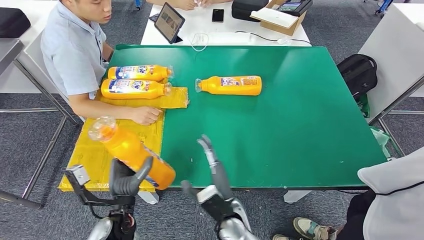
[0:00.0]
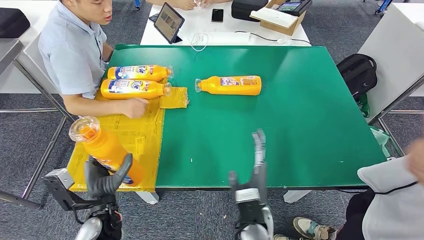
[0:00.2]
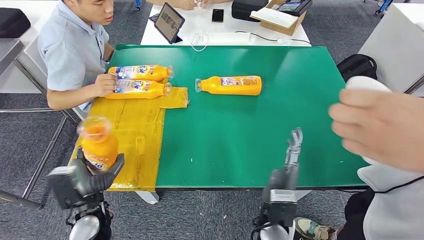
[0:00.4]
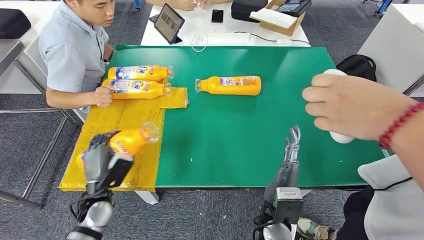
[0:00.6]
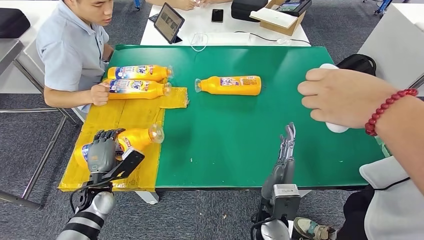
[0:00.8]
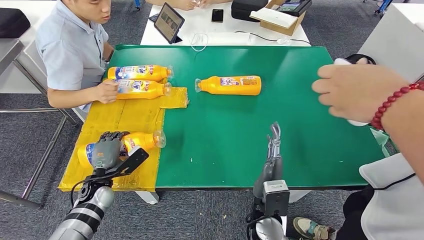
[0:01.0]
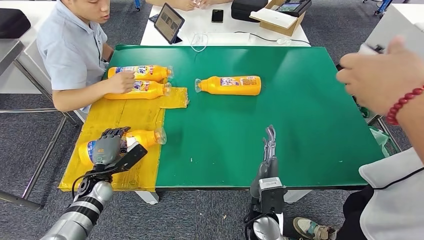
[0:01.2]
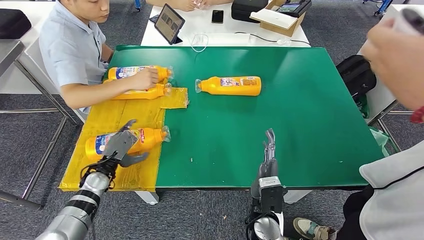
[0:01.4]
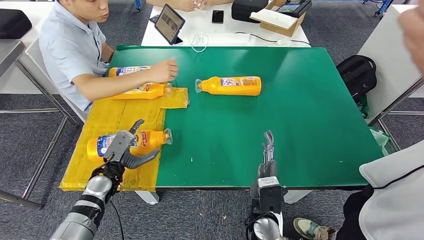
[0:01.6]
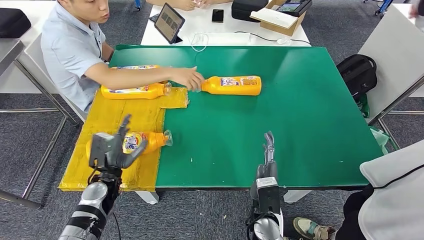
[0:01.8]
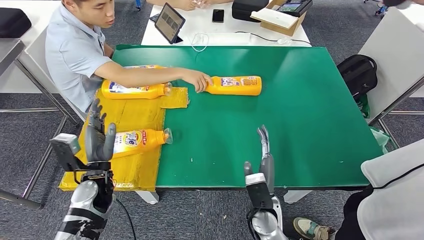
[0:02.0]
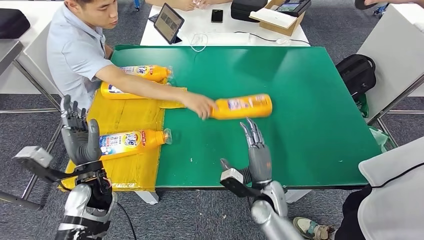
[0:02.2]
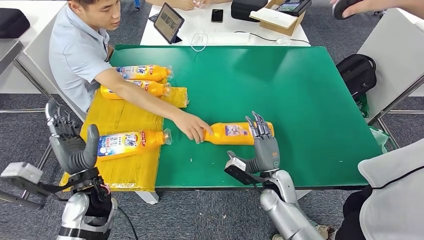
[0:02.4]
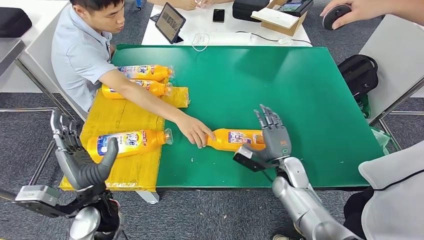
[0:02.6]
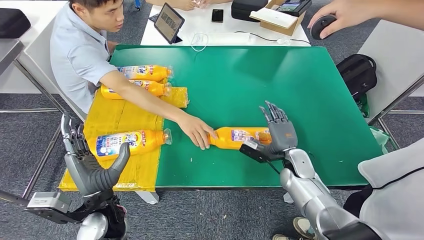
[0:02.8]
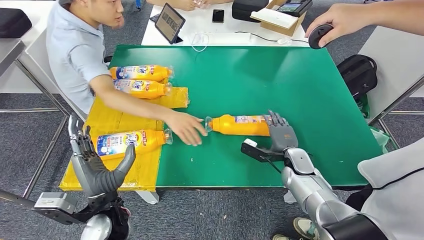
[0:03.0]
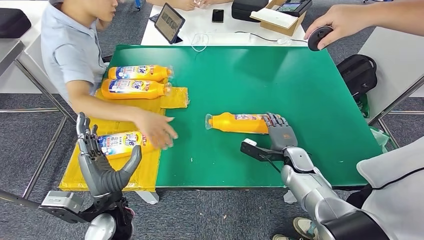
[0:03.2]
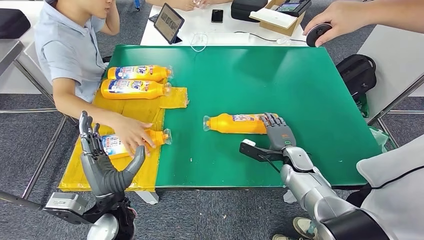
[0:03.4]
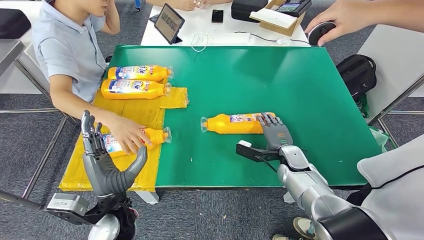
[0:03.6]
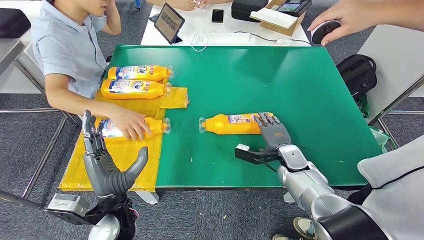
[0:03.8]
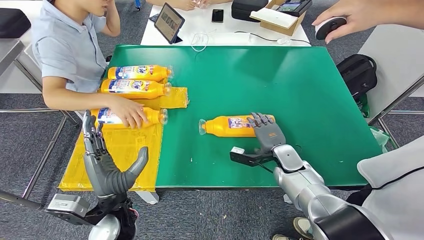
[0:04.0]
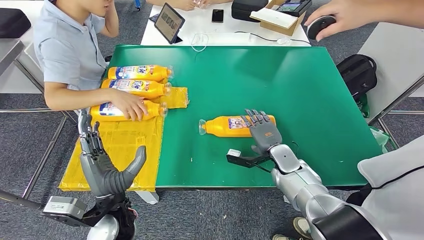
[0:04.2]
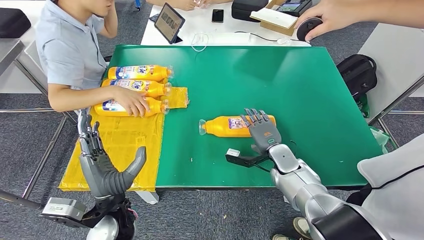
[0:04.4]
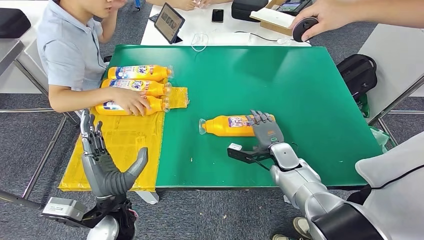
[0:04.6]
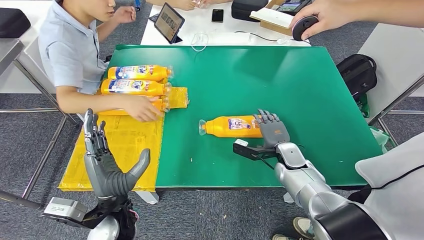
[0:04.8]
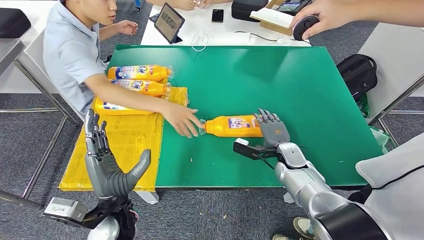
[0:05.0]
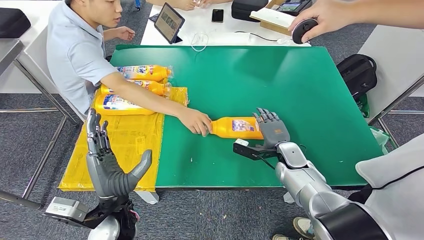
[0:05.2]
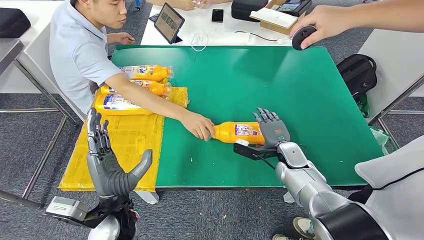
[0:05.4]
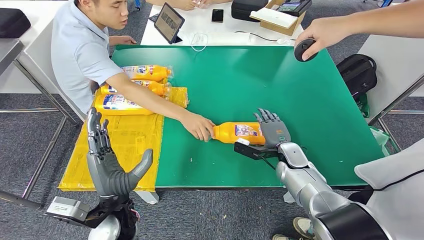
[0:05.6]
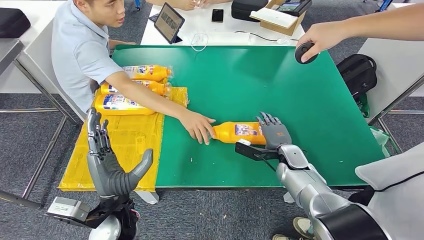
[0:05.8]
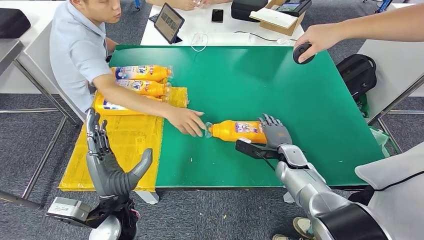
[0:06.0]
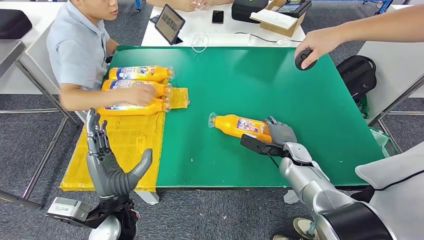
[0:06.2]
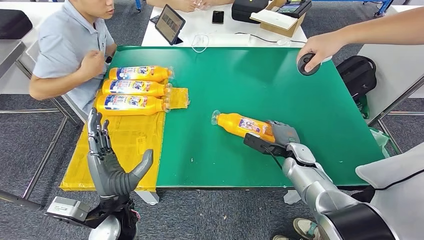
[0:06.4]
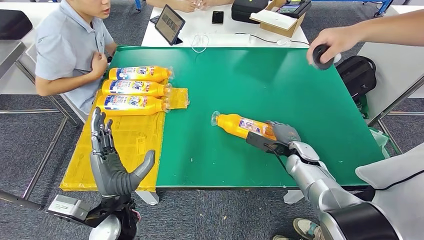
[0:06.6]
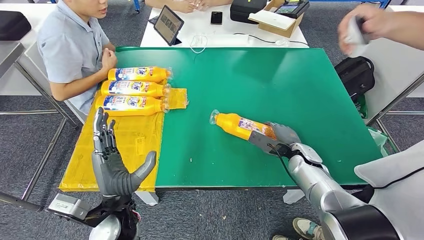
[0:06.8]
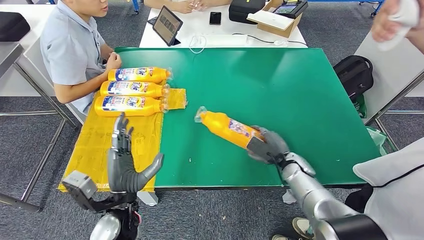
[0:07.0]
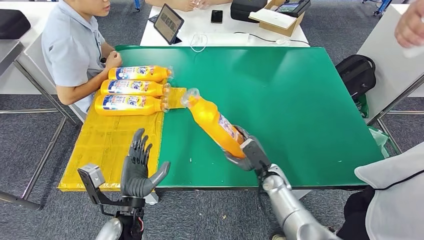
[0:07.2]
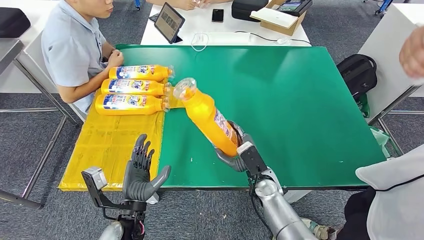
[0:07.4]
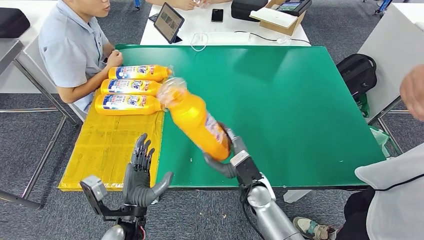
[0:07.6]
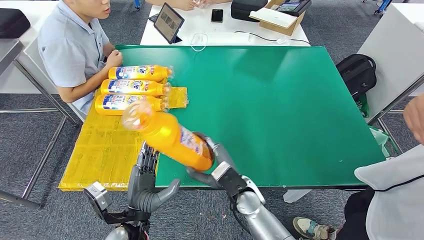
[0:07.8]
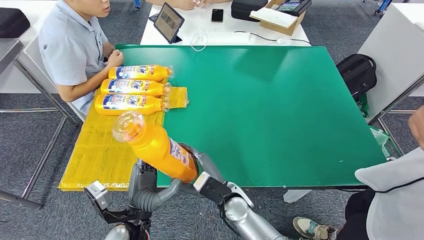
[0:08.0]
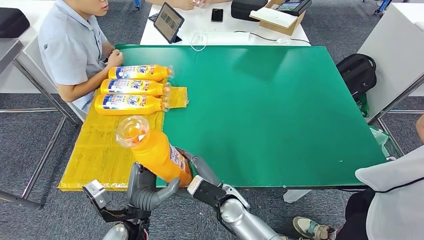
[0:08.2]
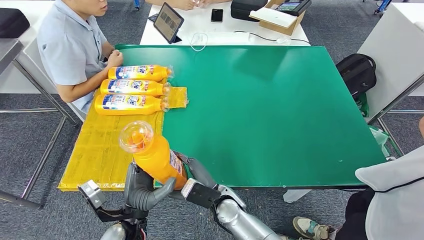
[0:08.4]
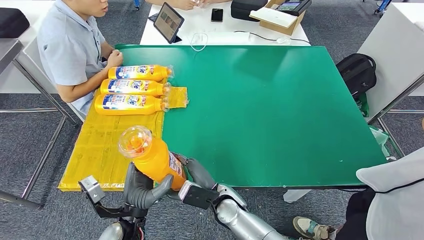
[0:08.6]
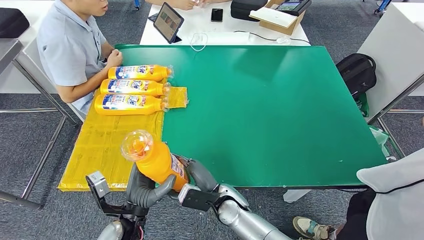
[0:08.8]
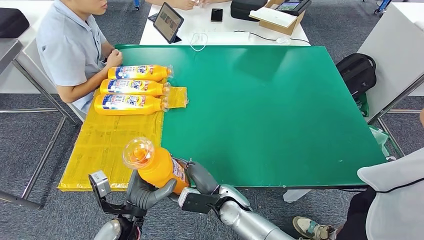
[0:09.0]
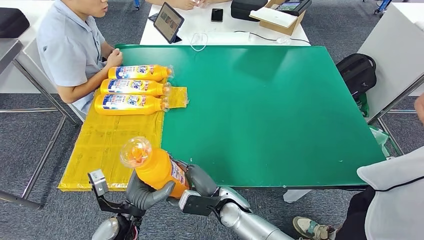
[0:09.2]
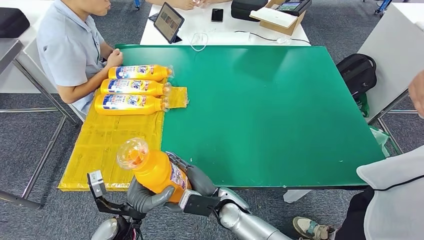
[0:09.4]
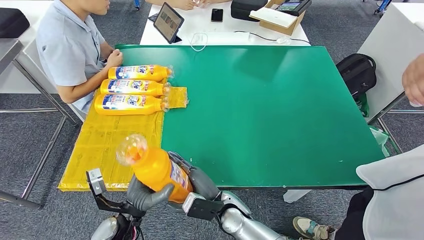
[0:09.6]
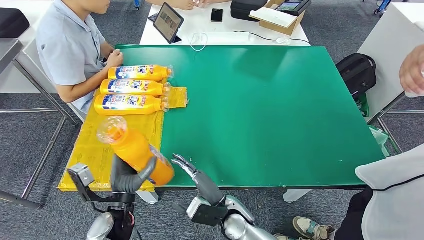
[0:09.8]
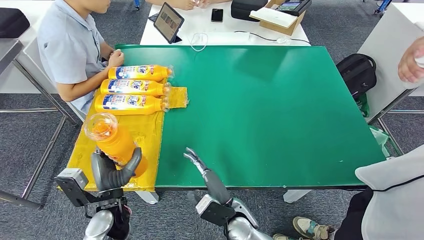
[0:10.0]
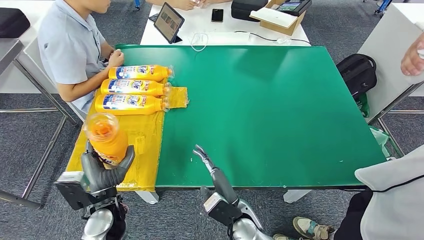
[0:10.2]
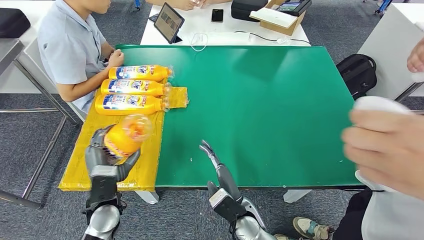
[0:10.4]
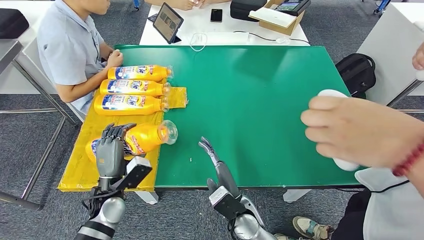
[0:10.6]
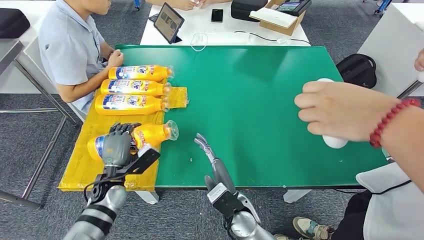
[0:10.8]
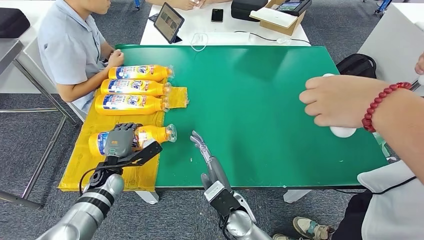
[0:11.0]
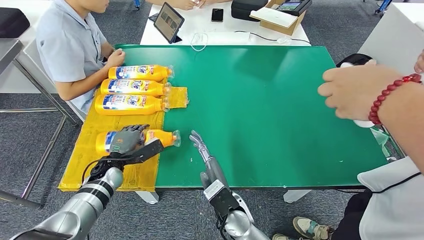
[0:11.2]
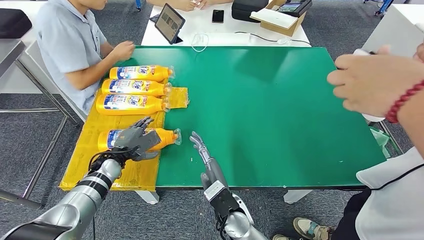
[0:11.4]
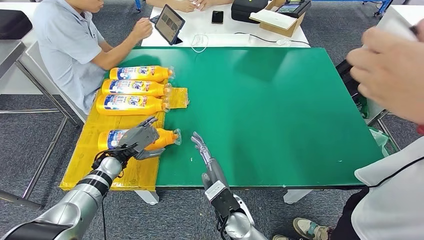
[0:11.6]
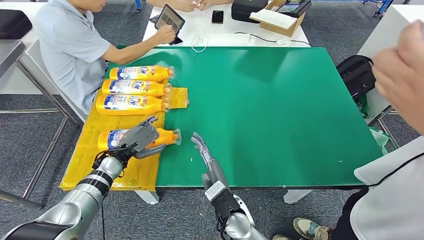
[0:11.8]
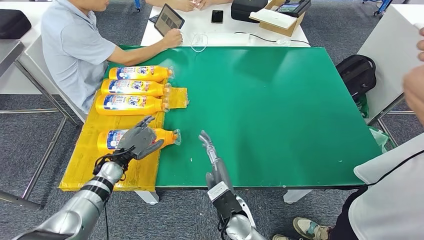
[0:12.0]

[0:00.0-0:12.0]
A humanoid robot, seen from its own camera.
Step, 0:00.0 to 0:01.6: Flip the bottle to face forward.
Step, 0:04.0 to 0:07.4: Pick up the bottle from the table.
0:07.6 to 0:09.0: The right hand heads to the left, covering roughly 10 cm.
0:09.0 to 0:10.4: The left hand moves to the left, approximately 5 cm. The right hand moves to the right, roughly 5 cm.

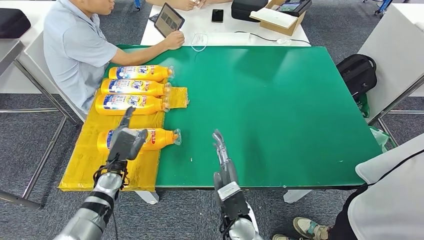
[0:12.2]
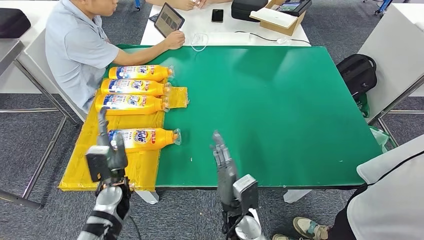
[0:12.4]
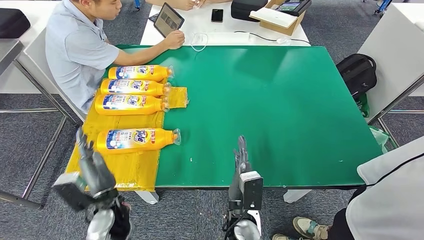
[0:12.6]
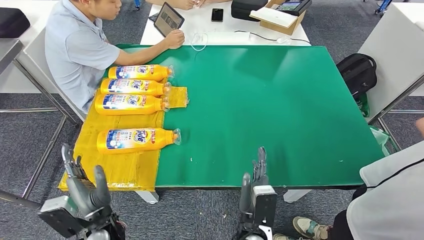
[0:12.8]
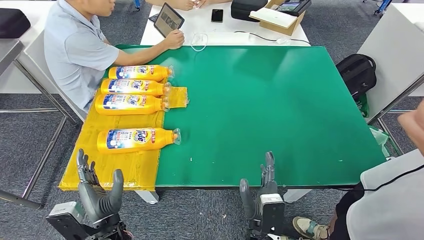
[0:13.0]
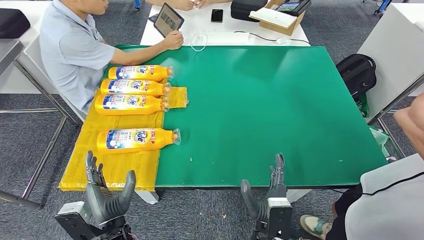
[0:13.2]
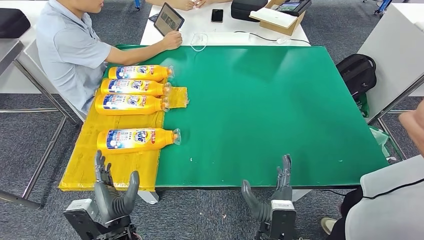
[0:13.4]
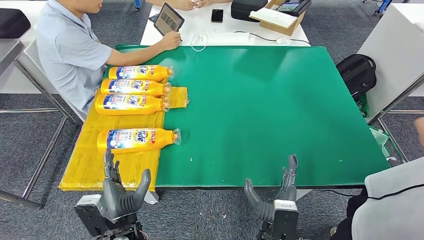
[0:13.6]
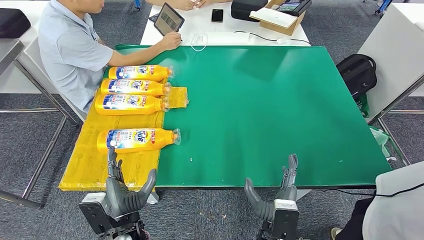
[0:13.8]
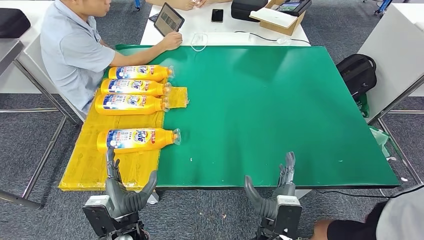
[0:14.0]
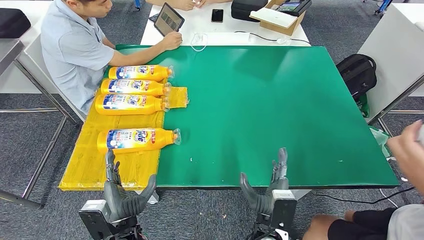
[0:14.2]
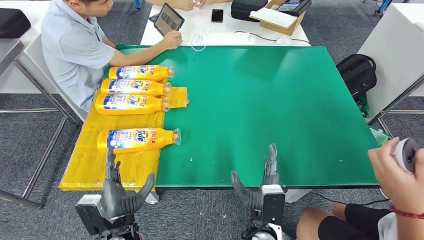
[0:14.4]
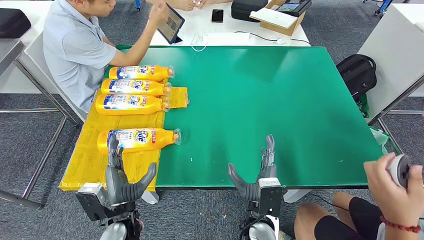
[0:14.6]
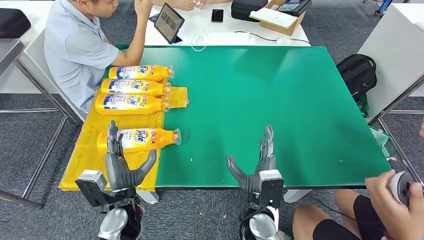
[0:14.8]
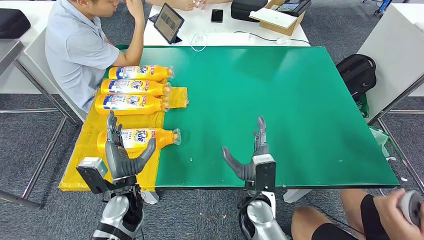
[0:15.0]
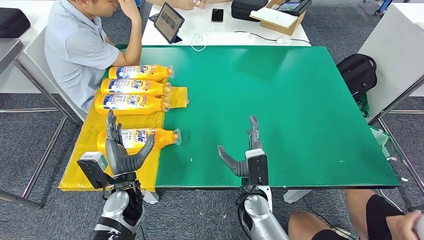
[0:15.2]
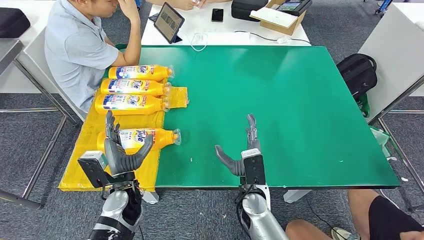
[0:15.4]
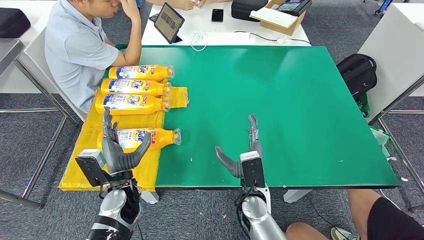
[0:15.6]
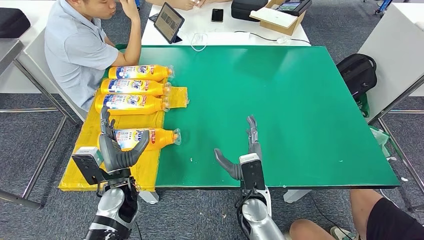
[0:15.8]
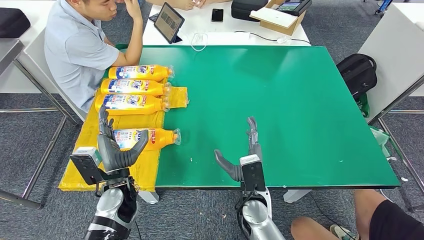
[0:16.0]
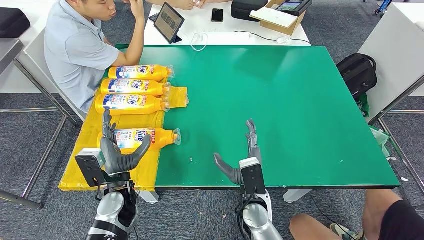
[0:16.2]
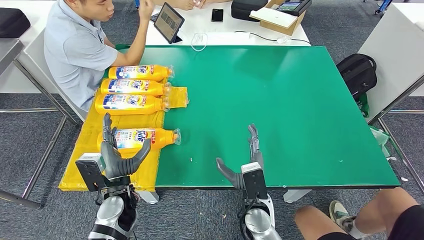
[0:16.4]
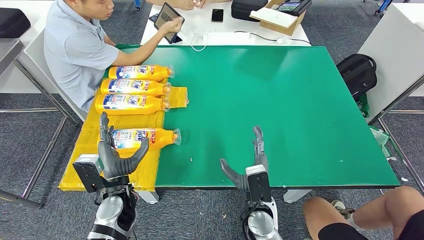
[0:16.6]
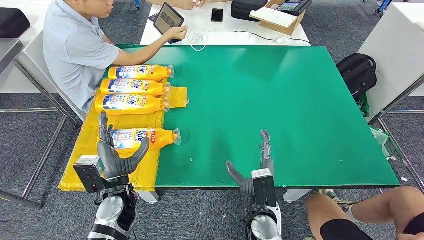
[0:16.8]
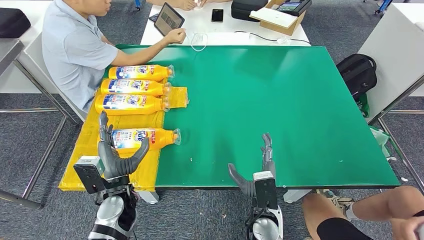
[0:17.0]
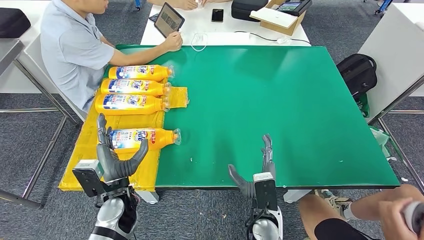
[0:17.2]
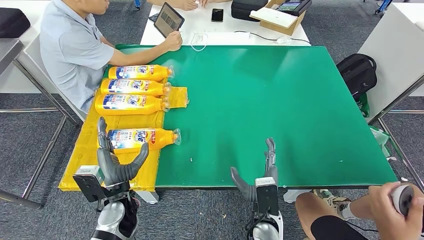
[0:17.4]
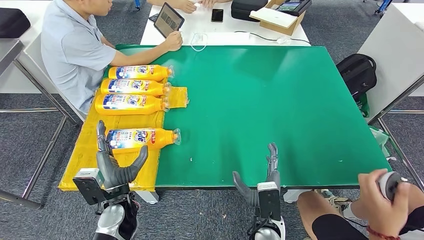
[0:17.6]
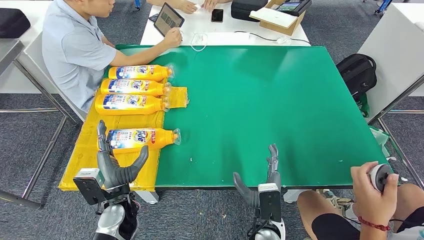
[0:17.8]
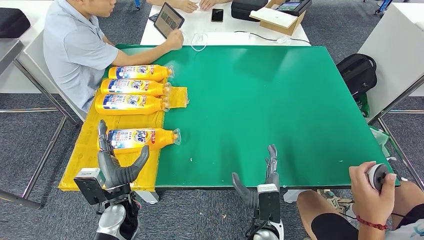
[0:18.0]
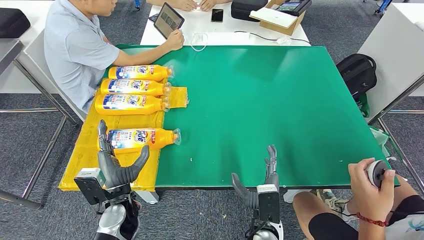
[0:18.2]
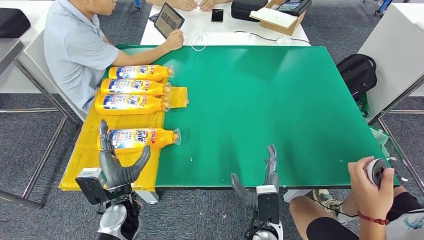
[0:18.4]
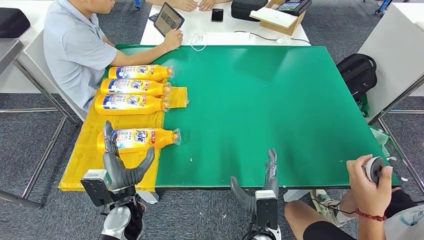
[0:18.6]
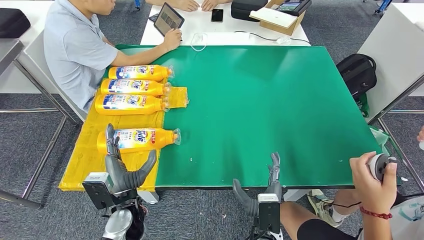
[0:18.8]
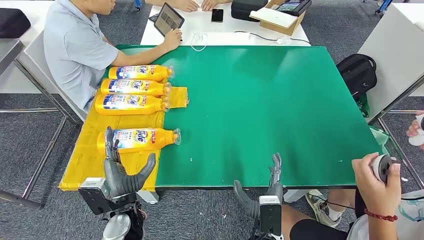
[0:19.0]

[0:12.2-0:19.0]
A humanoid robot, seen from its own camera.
Step, 0:12.2 to 0:18.8: Flip the bottle to face forward.
0:12.2 to 0:13.6: The left hand shifts roughly 20 cm backward and to the right. The right hand is displaced to the right and backward by roughly 10 cm.
0:15.0 to 0:16.2: The hands stay close to where they were, moving slightly.
0:16.2 to 0:17.6: The right hand moves backward, some 5 cm.
0:17.6 to 0:19.0: There are only small adjustments of the hands.
